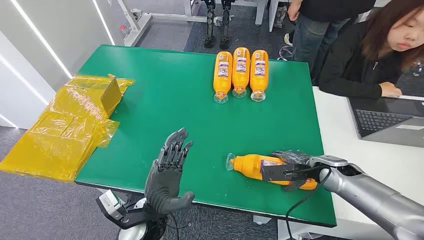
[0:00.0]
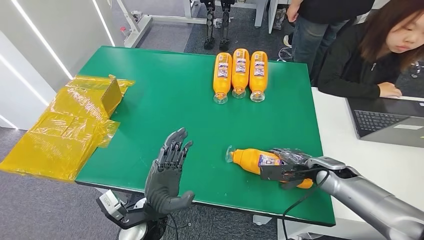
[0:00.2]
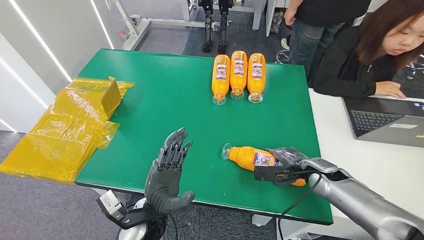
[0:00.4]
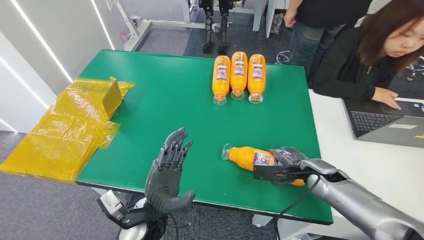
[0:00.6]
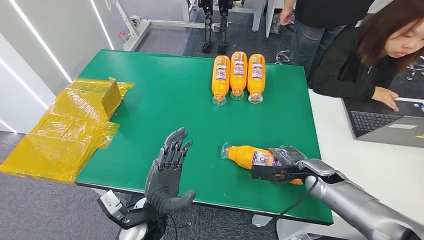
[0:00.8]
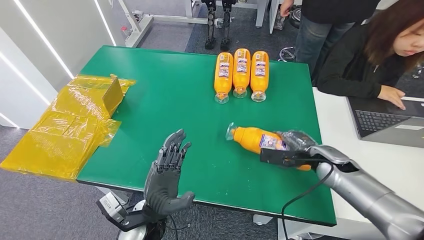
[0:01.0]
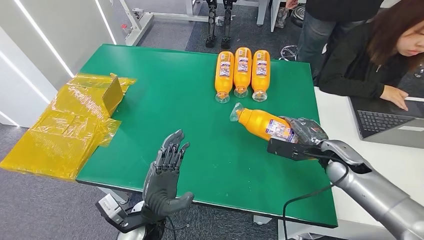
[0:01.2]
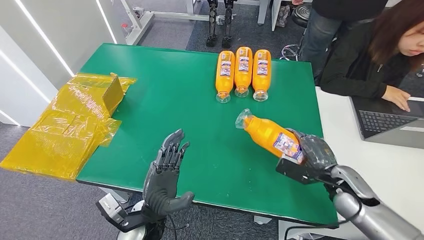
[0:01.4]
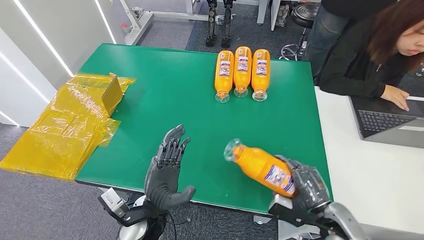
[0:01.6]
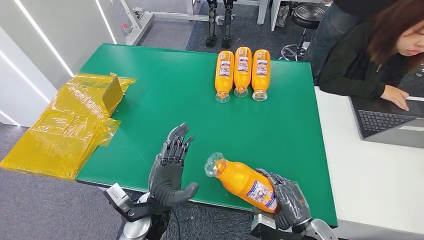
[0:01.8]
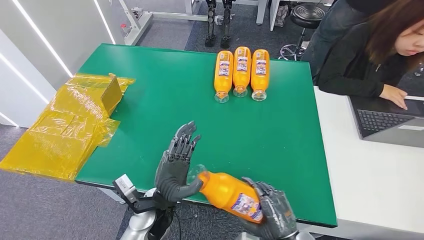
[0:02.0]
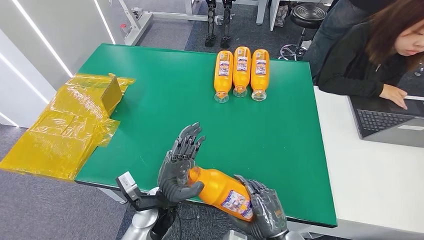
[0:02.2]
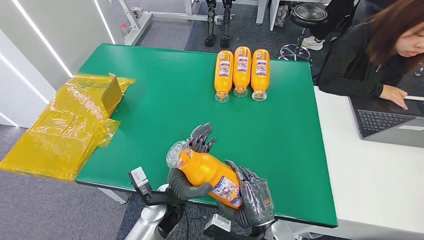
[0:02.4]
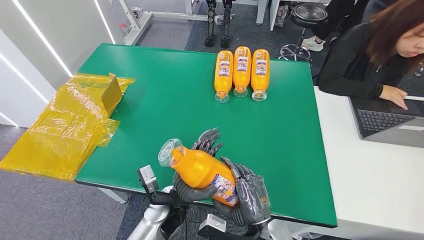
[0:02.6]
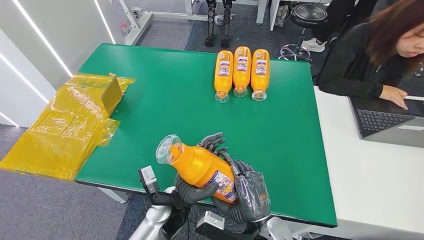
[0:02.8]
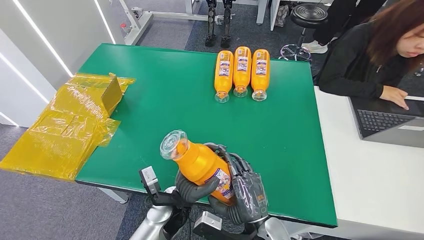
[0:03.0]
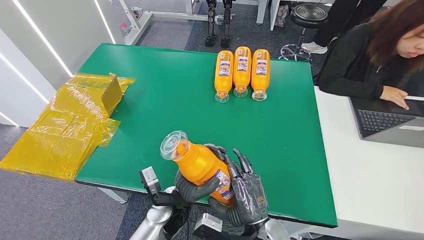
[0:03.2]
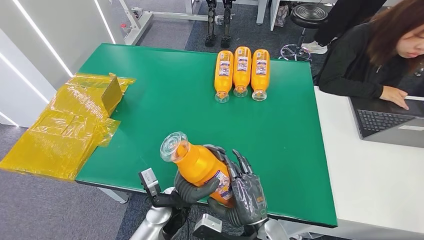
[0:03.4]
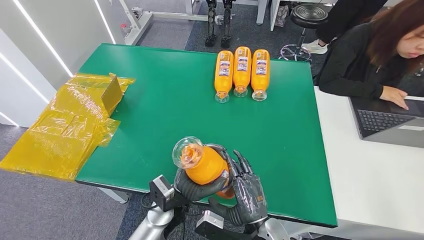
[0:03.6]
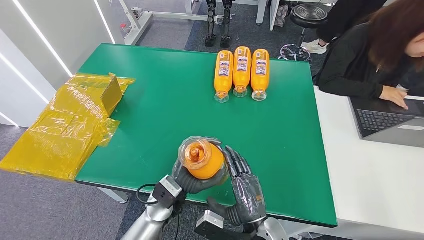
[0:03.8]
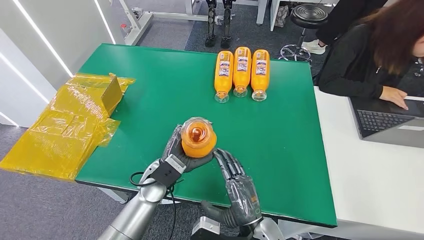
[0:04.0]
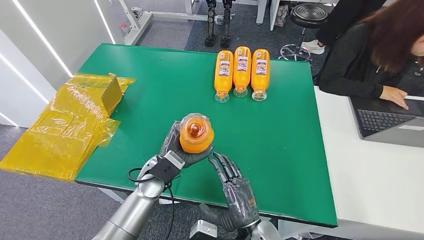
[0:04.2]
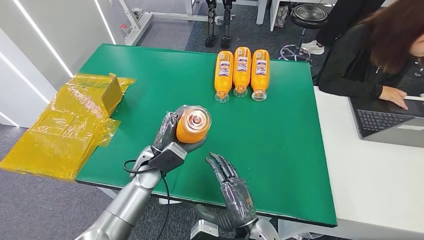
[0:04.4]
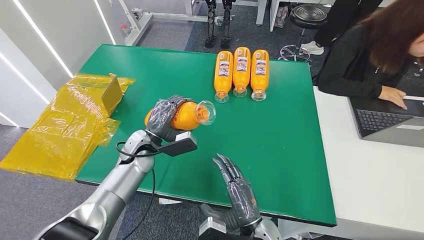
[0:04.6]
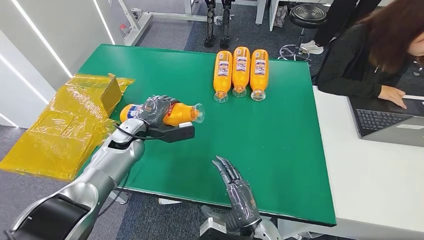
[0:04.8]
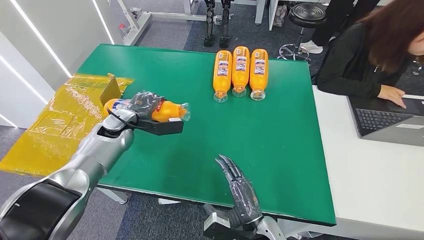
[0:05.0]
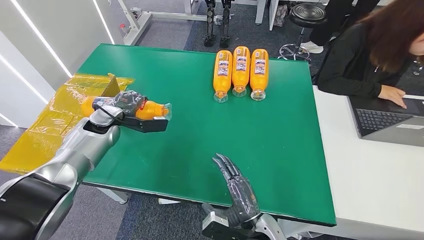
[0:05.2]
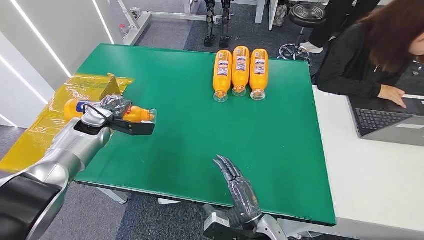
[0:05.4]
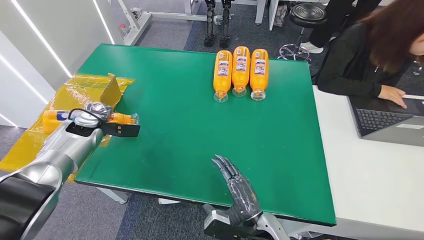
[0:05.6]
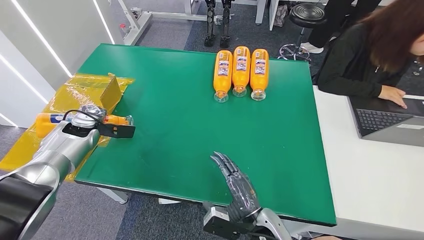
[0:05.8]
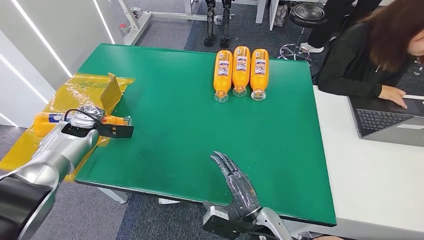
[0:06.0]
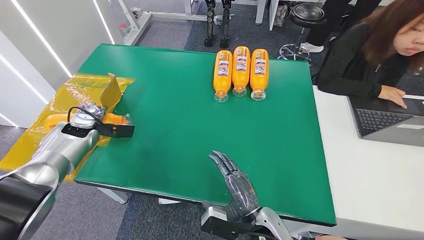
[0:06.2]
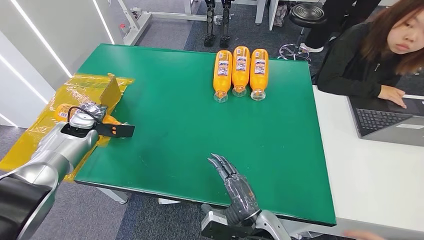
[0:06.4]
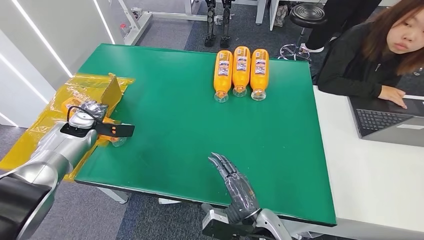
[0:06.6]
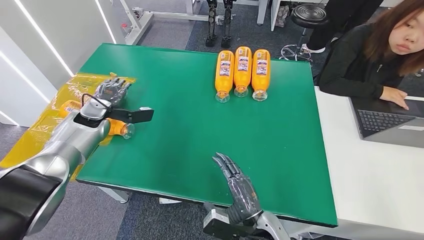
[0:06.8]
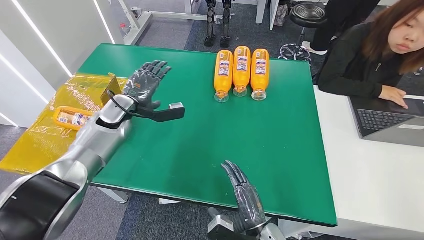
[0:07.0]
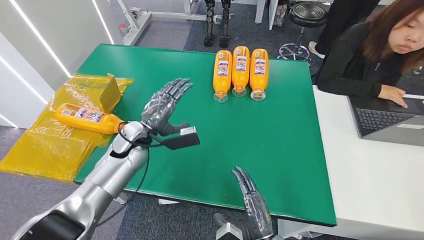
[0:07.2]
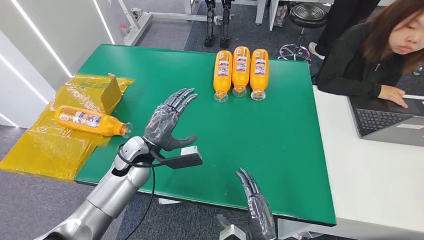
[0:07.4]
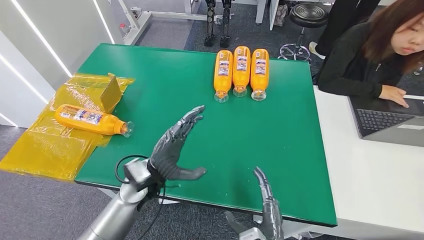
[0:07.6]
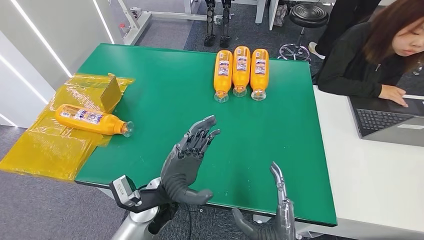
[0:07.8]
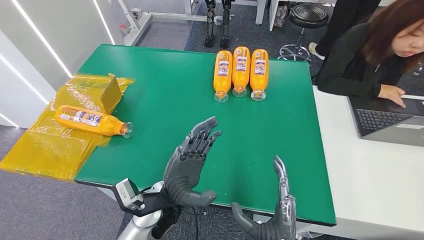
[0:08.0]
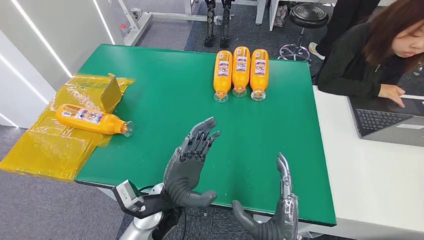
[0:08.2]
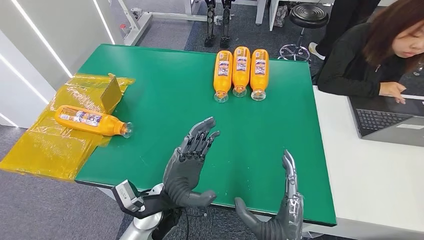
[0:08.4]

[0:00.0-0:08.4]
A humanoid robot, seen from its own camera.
Step, 0:00.0 to 0:02.6: Pick up the bottle from the table.
Step, 0:02.8 to 0:08.4: Turn the bottle to the front side.
0:02.8 to 0:04.2: The left hand is displaced forward and to the left by approximately 10 cm.
0:04.2 to 0:05.6: The left hand moves to the left and forward, some 30 cm.
0:05.6 to 0:07.0: The left hand moves to the right, about 10 cm.
0:07.0 to 0:08.4: The right hand is displaced upward and backward by approximately 10 cm. The left hand travels backward and to the right by roughly 30 cm.

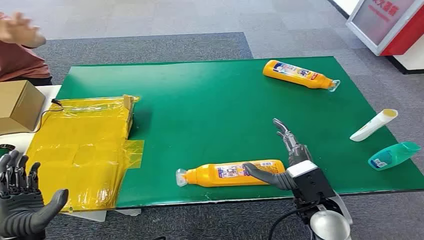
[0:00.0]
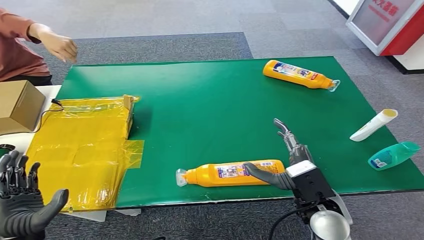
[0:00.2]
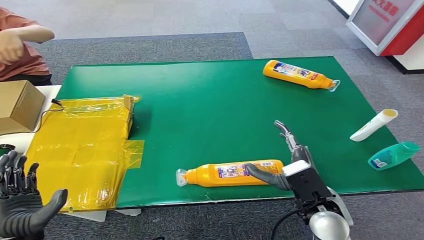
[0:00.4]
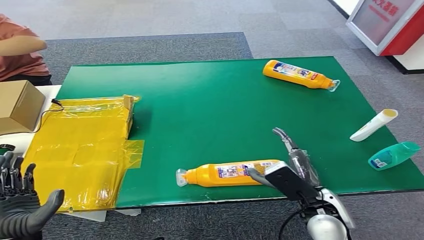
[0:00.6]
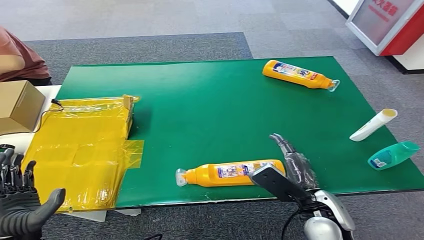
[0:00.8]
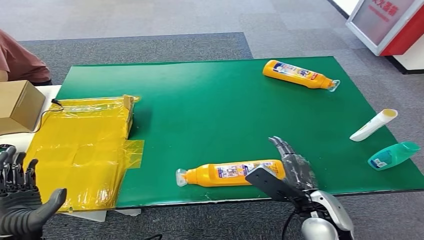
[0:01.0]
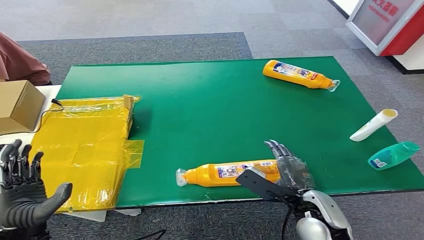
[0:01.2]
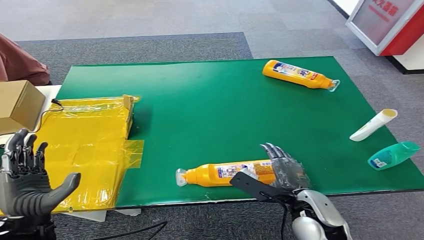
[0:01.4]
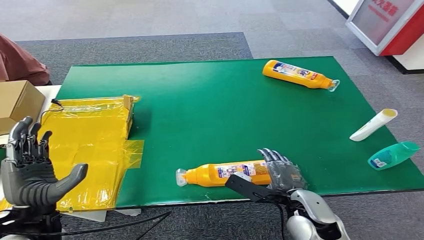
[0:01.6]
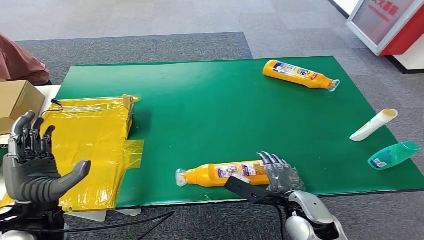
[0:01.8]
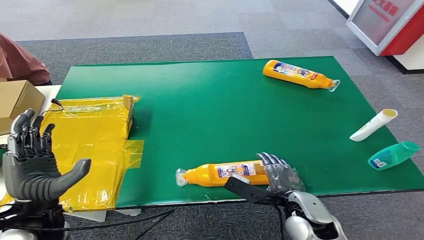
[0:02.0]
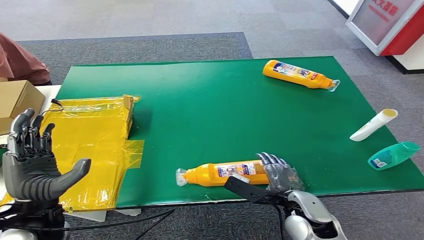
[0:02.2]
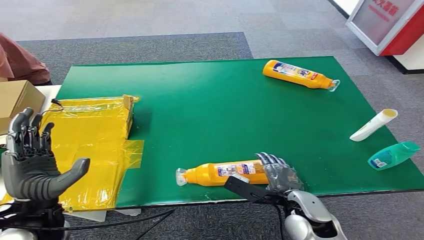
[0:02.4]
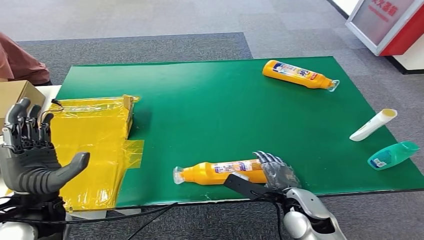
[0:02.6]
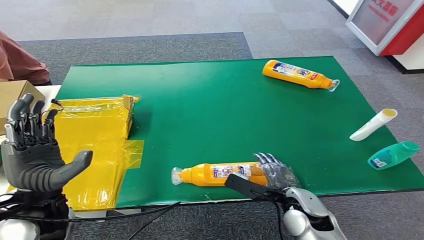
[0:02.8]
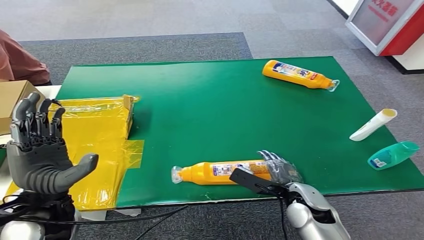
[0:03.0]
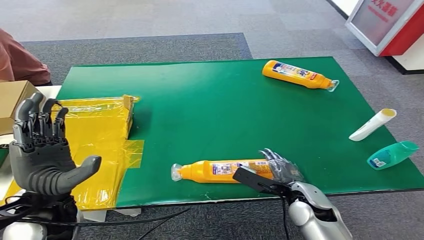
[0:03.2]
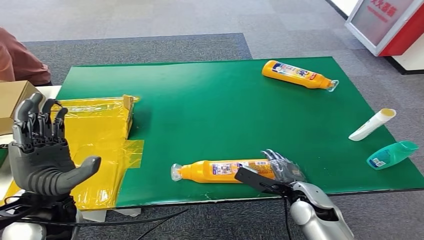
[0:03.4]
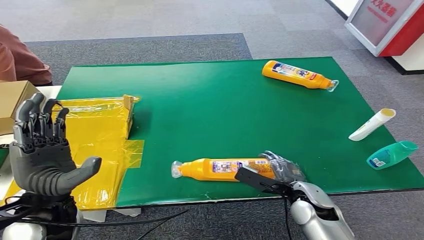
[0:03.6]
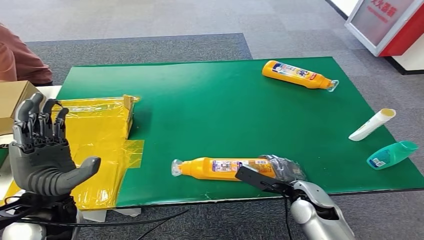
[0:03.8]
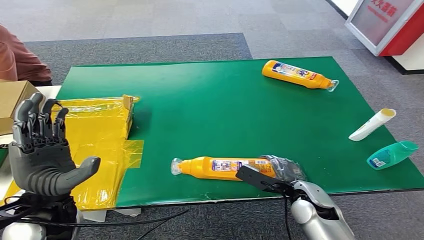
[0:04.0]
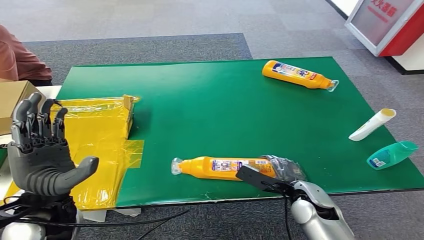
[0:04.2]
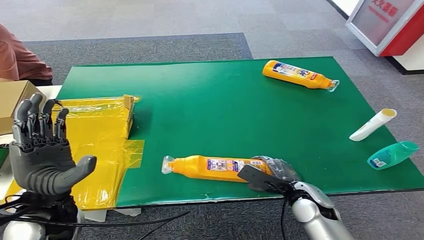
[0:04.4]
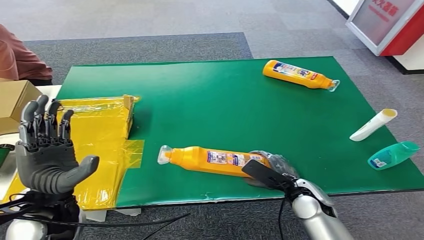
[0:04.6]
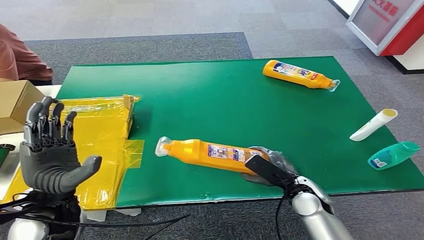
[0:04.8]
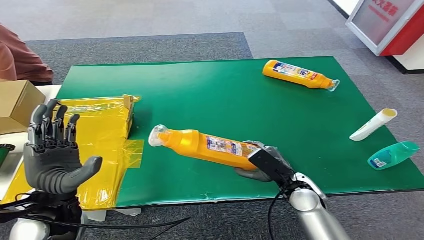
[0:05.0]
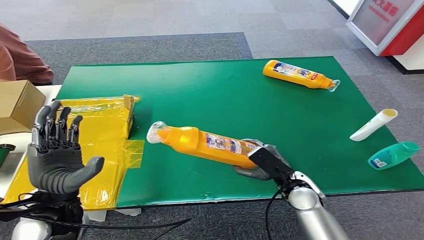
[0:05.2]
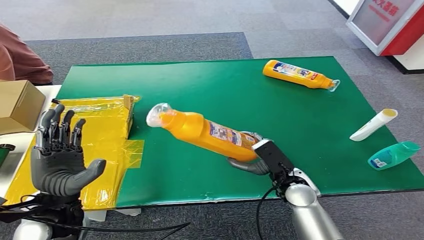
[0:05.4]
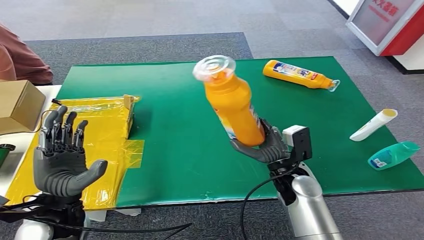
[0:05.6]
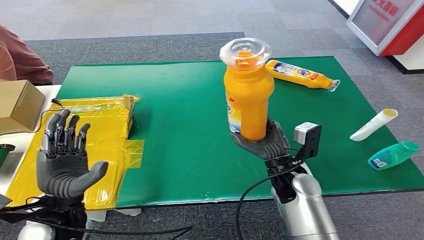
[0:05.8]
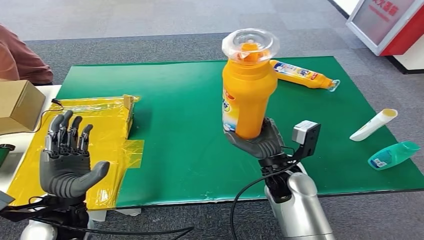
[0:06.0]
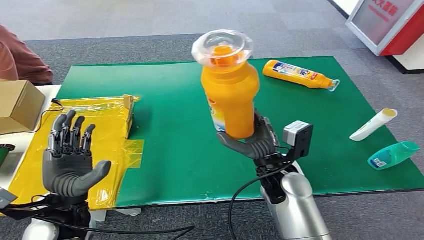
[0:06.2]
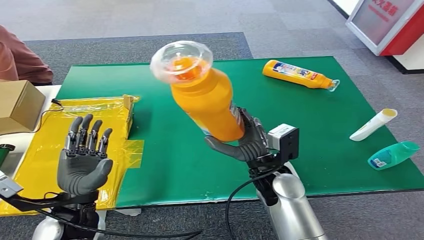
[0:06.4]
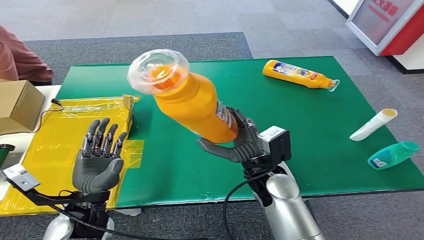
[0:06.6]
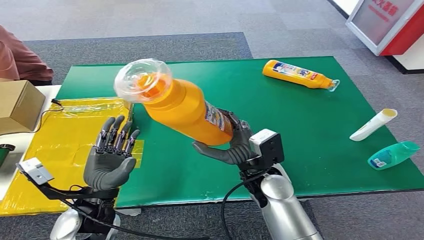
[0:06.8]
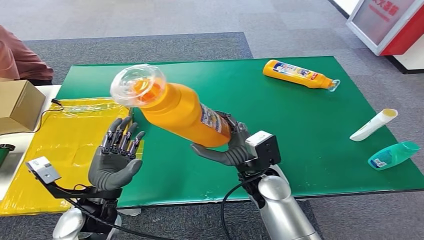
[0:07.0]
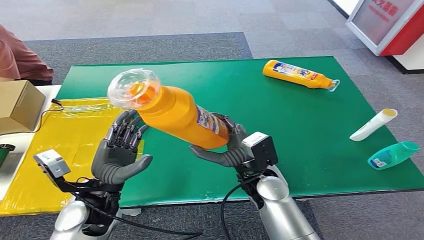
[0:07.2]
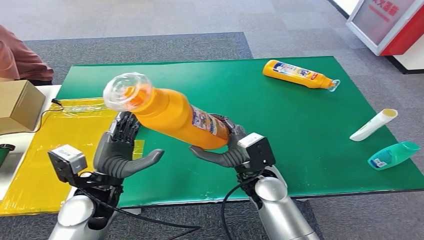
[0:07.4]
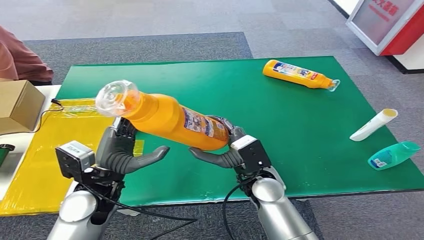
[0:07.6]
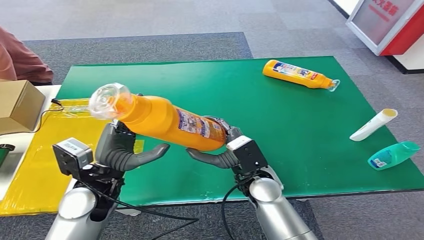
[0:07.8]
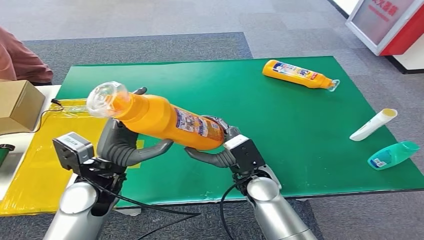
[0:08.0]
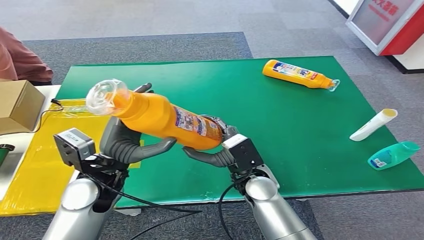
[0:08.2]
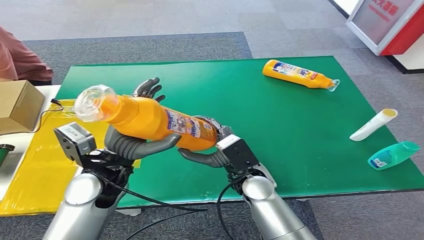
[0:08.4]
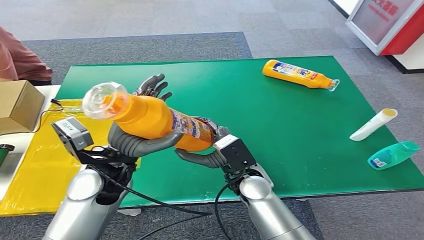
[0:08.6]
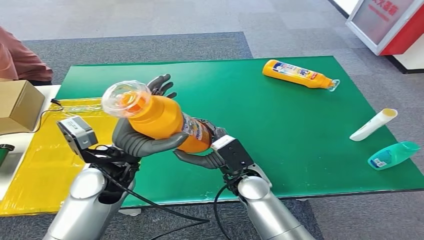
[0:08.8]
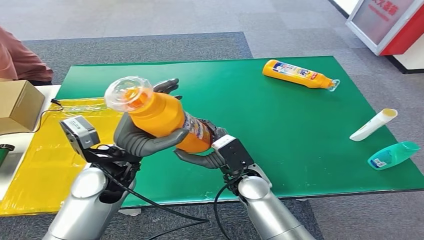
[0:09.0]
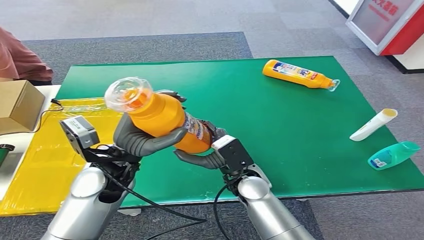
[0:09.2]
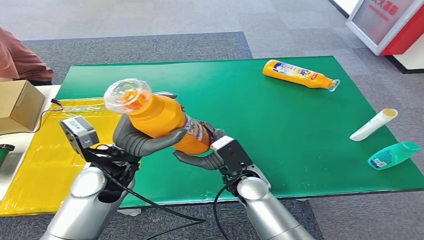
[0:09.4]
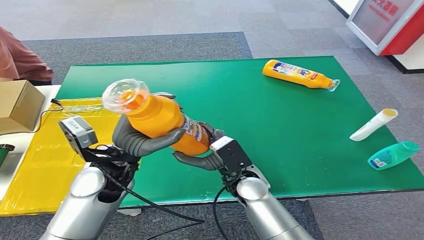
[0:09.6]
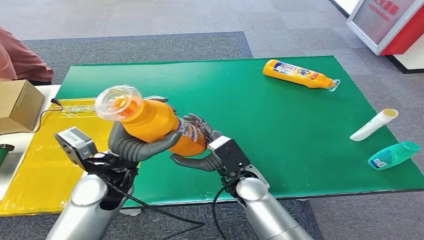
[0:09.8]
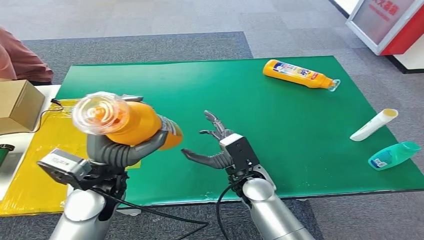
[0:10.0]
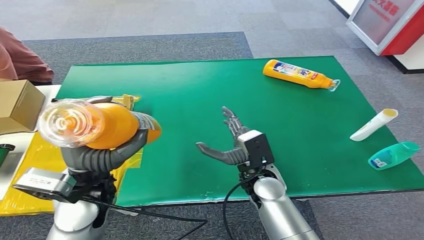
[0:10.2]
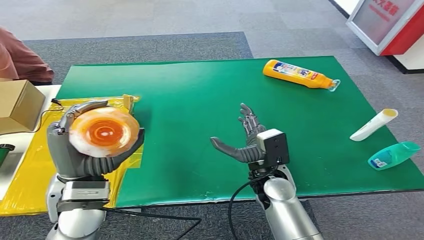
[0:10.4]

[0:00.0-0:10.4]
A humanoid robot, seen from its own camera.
Step, 0:00.0 to 0:05.8: Pick up the bottle from the table.
0:01.4 to 0:03.0: The right hand heads downward, covering some 5 cm, while the left hand heads upward, covering approximately 5 cm.
0:03.0 to 0:04.4: There are only small adjustments of the hands.
0:07.4 to 0:09.0: The left hand goes some 5 cm upward.
